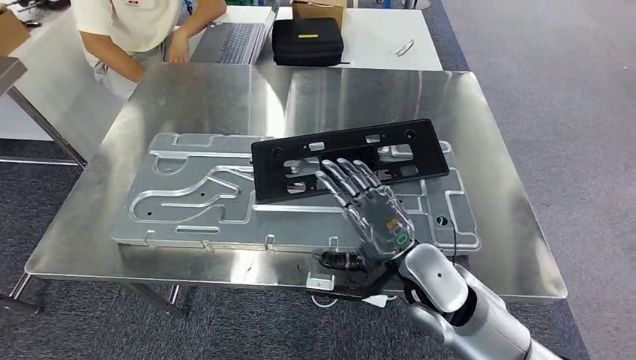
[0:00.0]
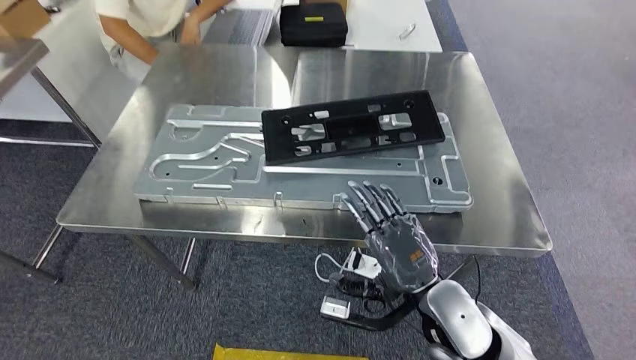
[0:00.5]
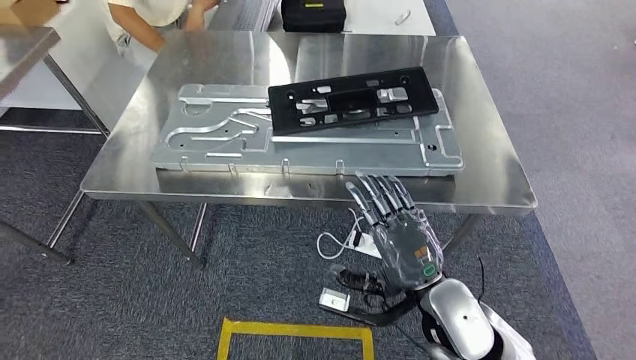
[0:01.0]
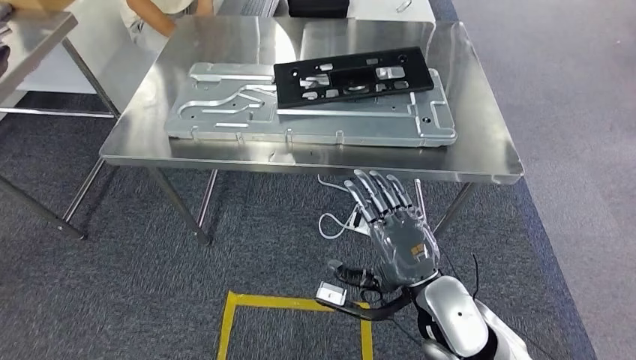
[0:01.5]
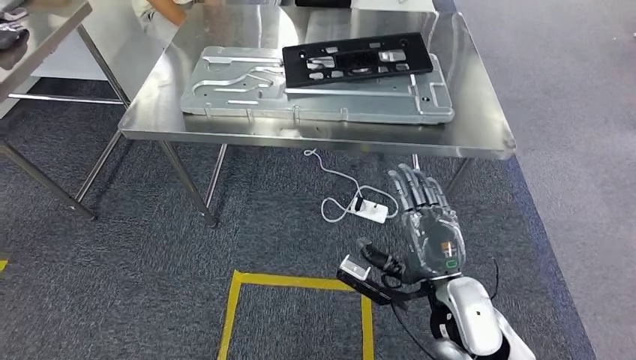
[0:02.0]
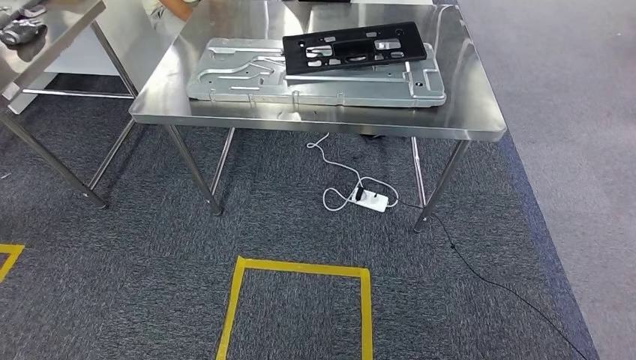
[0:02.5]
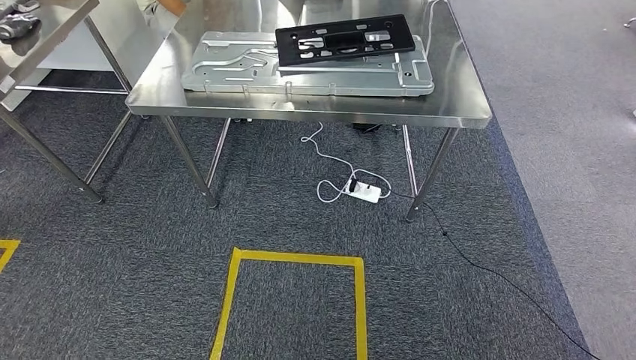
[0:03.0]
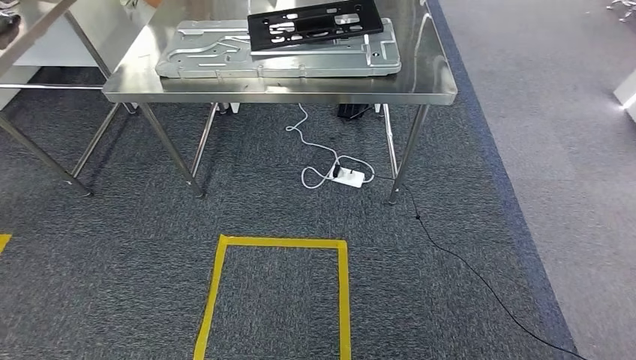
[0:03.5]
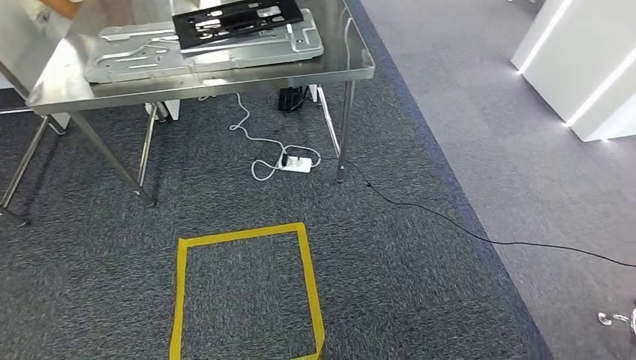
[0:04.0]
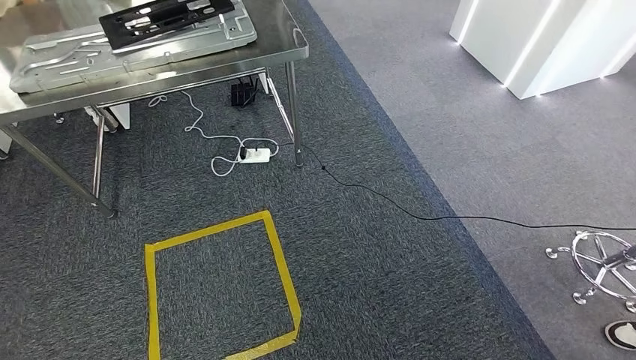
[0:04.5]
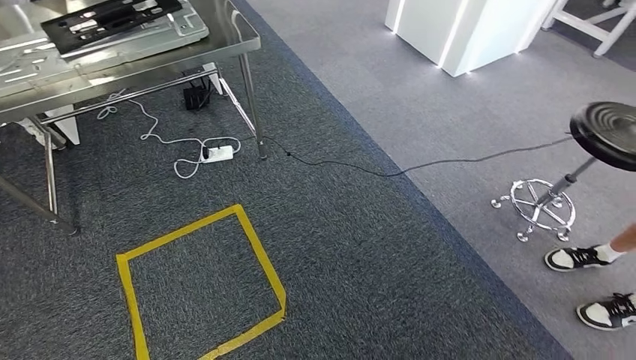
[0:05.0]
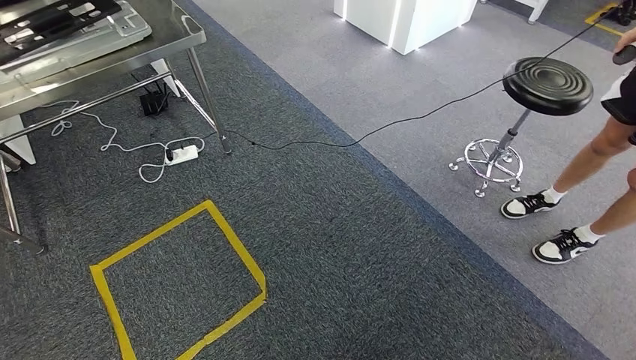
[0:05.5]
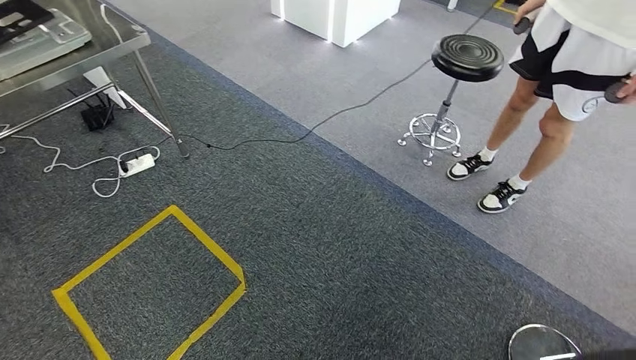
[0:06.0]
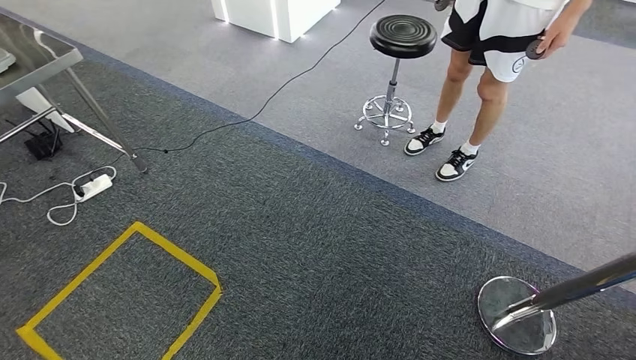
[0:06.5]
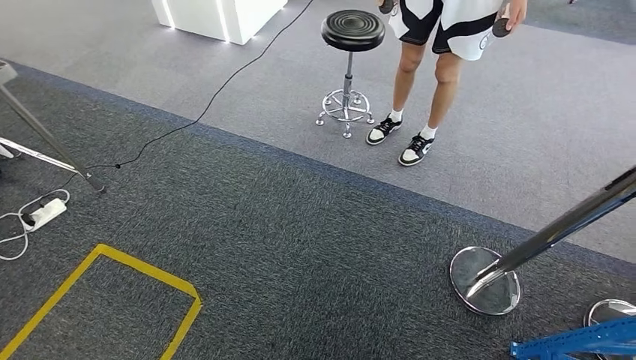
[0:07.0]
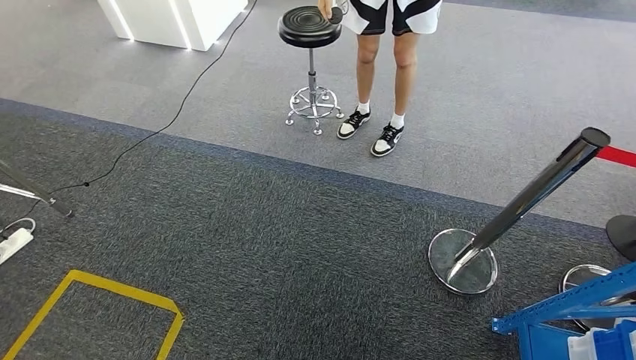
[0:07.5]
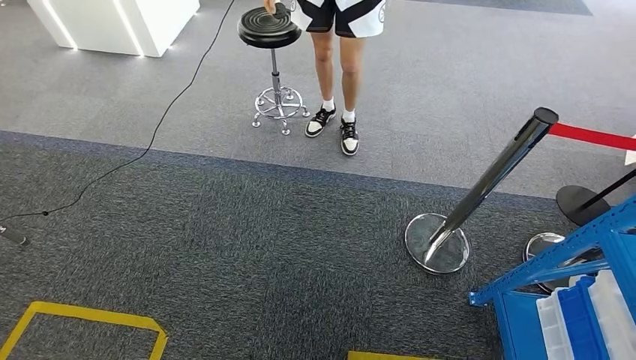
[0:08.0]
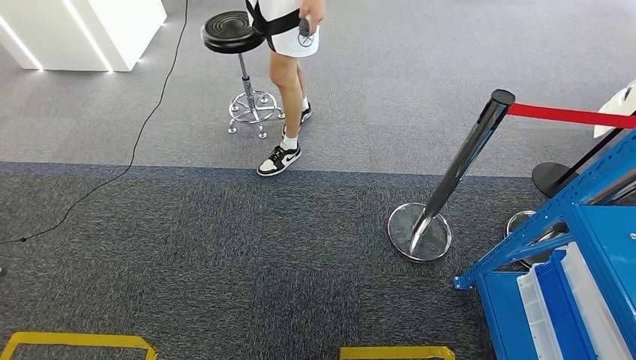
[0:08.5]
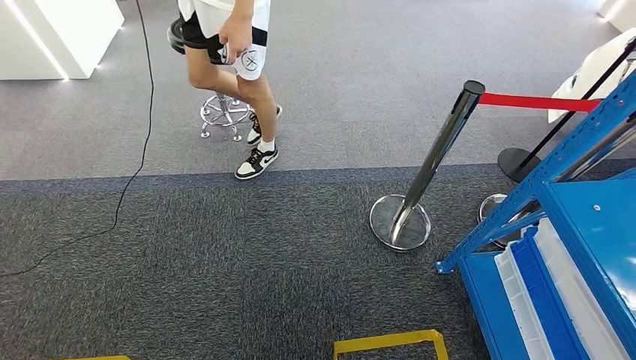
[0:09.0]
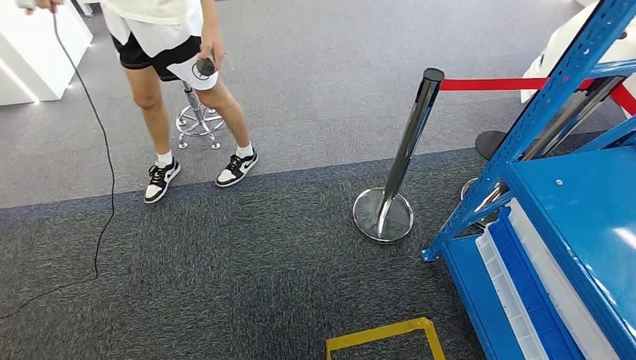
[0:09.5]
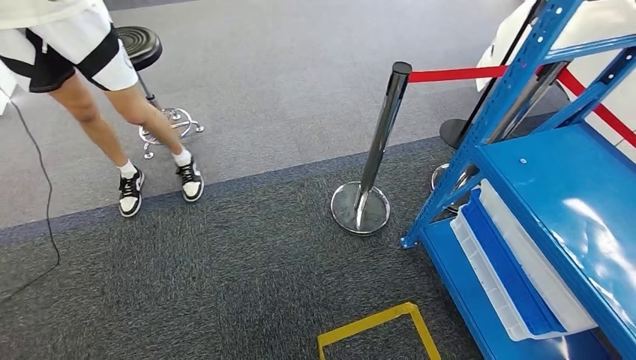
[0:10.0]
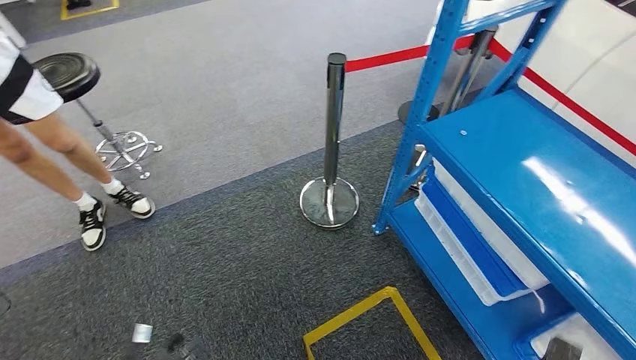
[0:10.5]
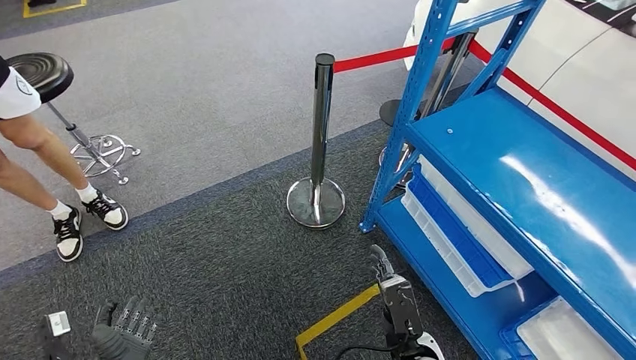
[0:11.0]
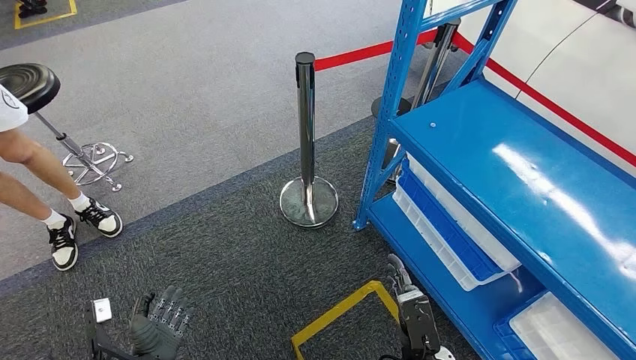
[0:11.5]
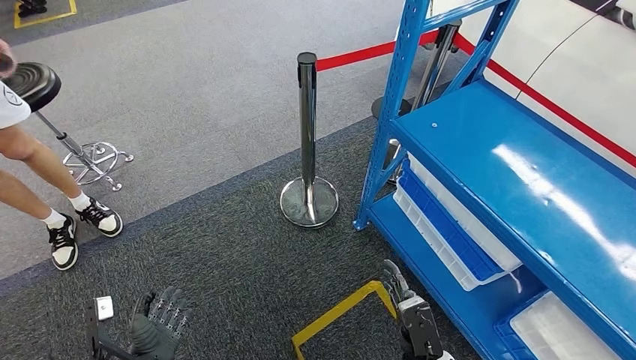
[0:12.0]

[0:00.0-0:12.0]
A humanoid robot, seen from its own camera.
Step, 0:00.0 to 0:02.5: Insert the large material into the corresponding slot on the workbench.

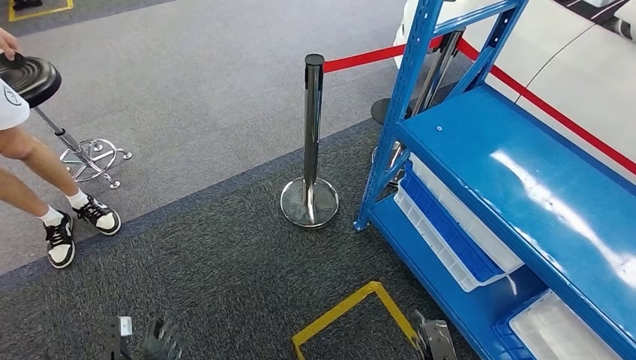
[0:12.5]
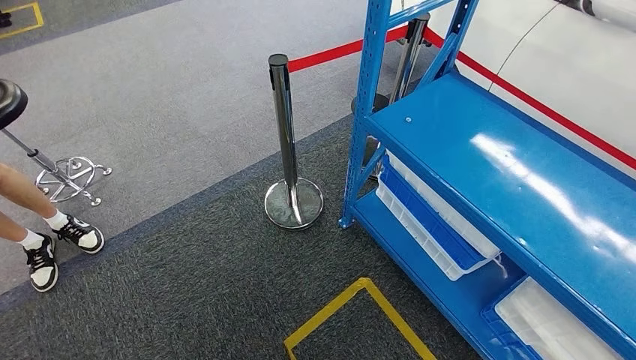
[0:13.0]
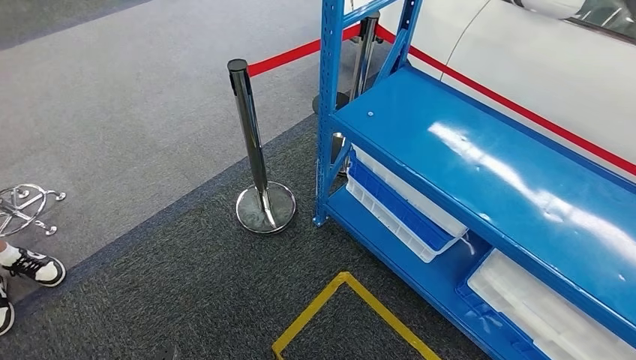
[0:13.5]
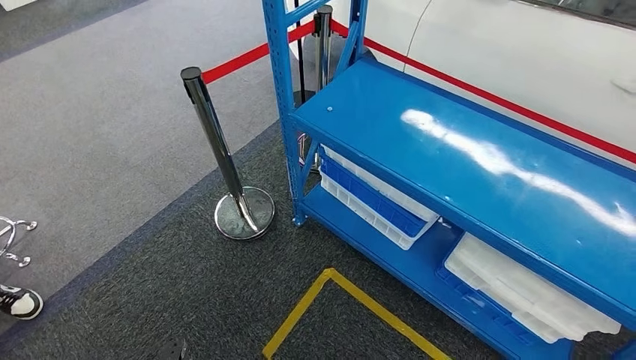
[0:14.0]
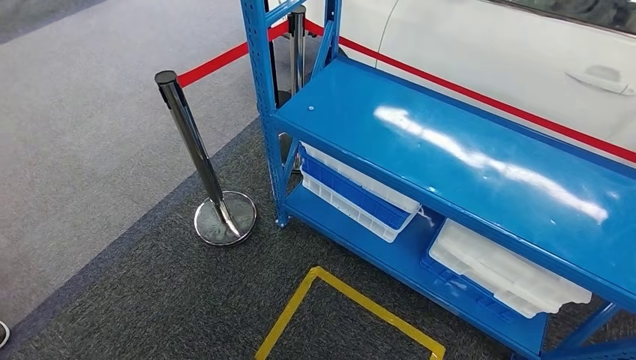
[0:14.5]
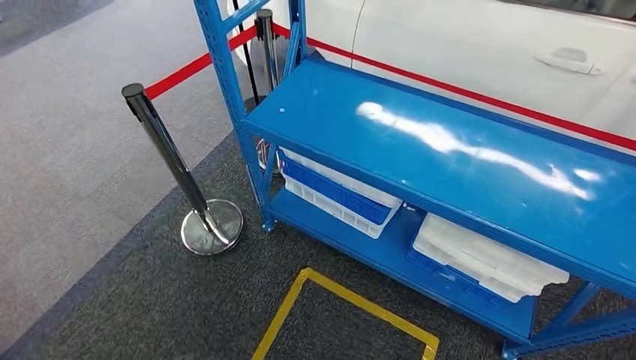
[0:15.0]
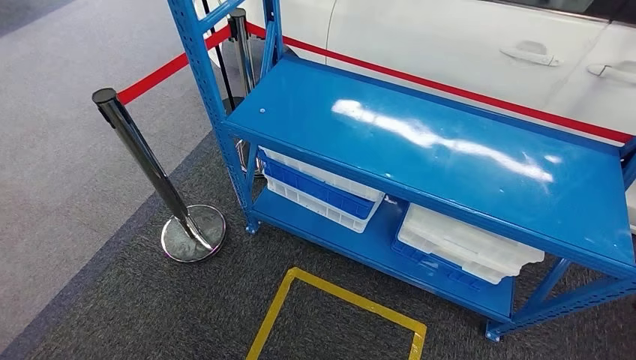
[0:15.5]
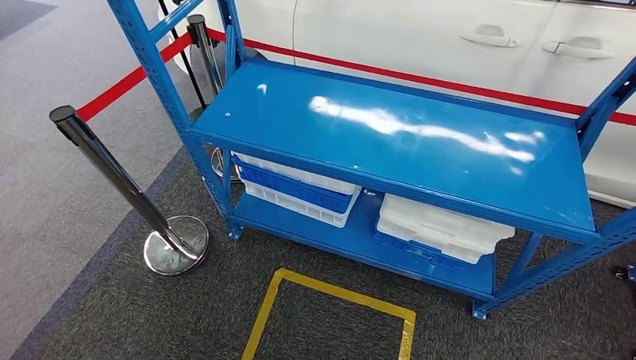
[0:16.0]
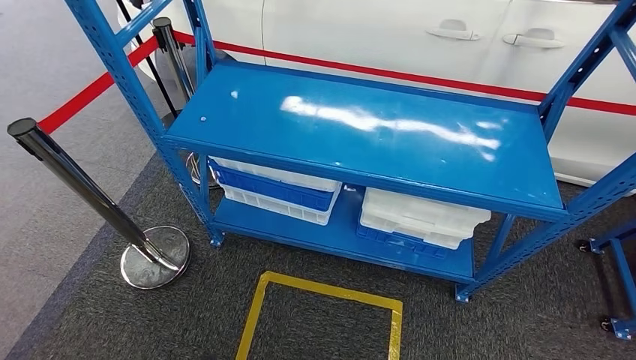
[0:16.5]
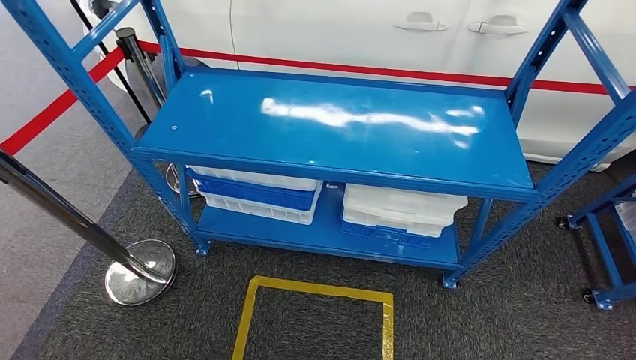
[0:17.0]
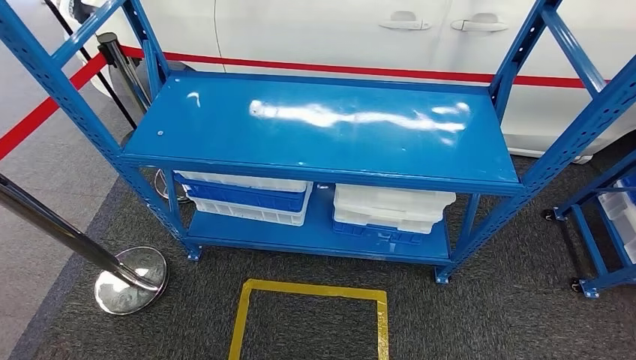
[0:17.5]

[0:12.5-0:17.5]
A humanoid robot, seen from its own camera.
Step, 0:12.5 to 0:17.5: Return to the initial position at the shelf.
